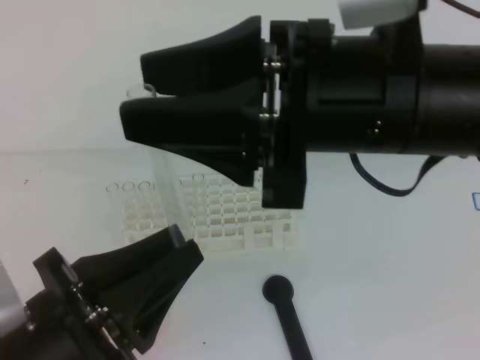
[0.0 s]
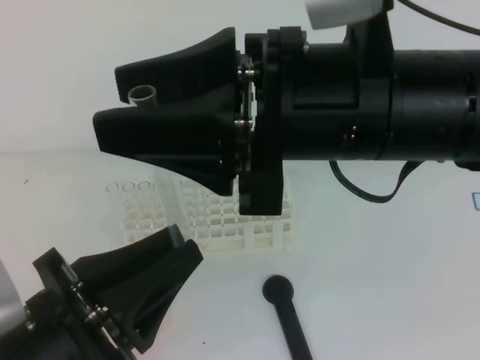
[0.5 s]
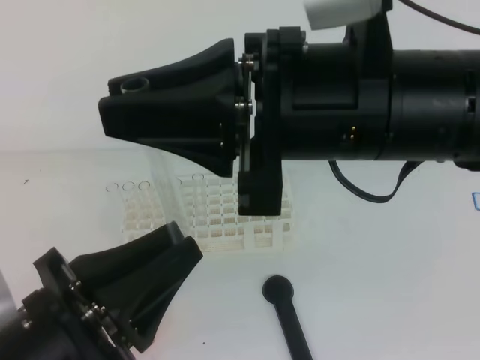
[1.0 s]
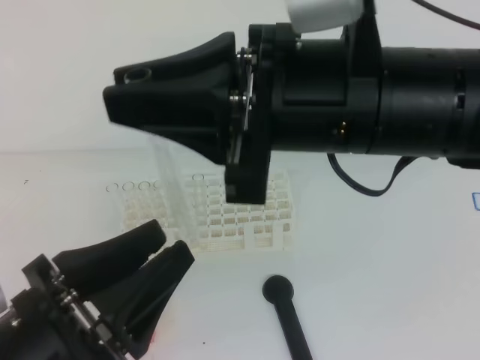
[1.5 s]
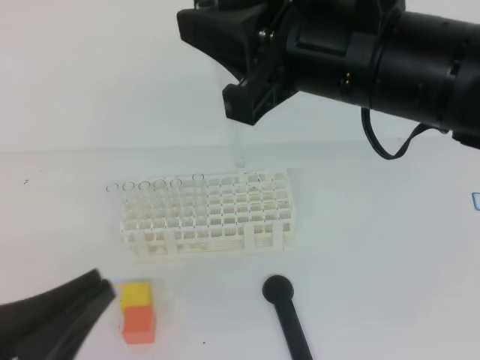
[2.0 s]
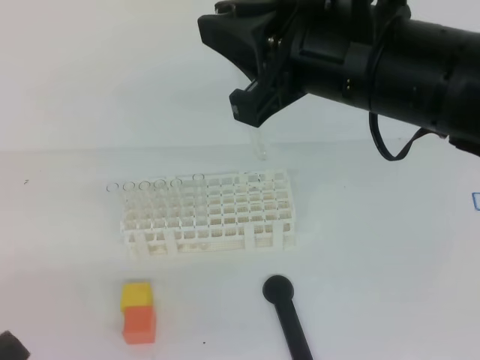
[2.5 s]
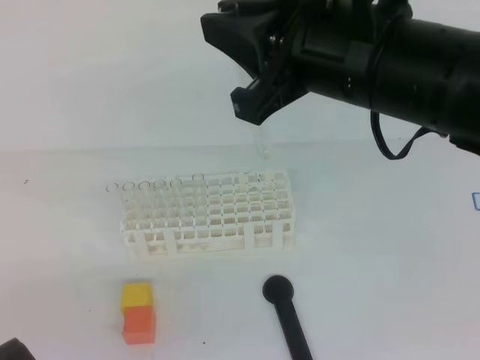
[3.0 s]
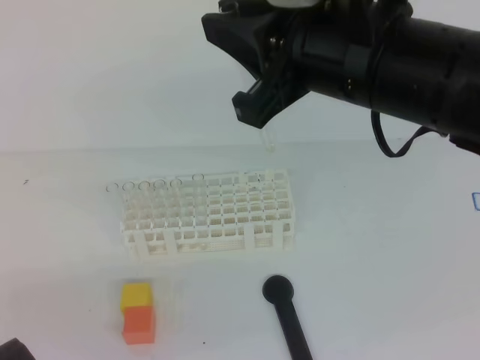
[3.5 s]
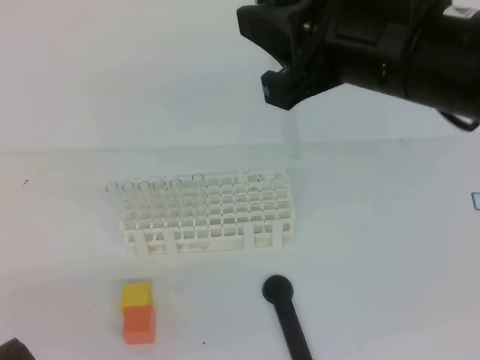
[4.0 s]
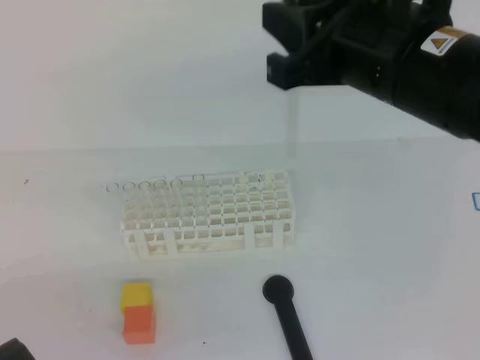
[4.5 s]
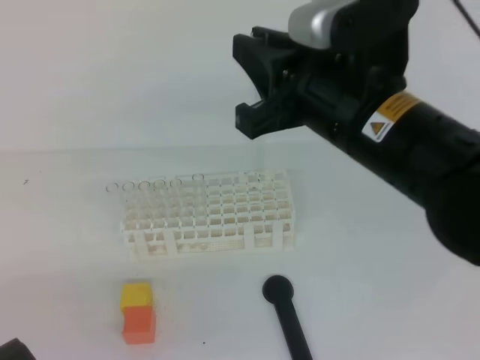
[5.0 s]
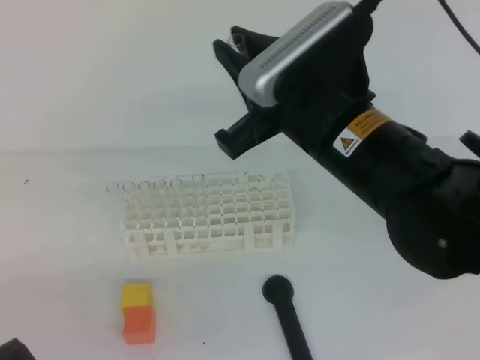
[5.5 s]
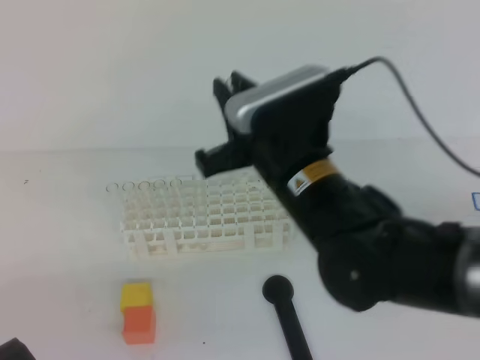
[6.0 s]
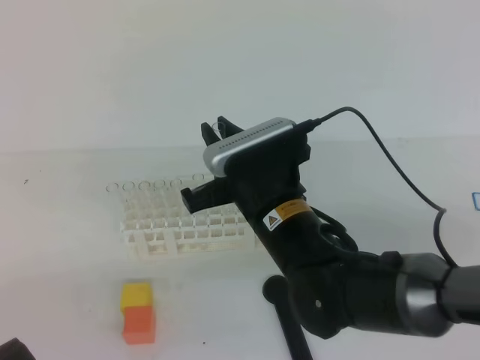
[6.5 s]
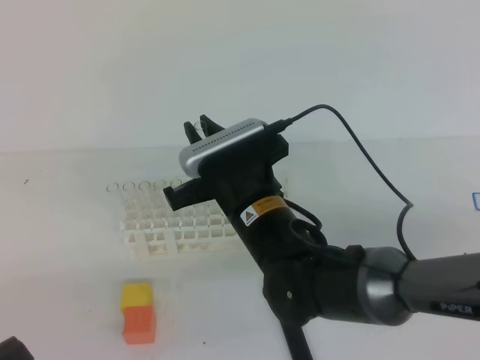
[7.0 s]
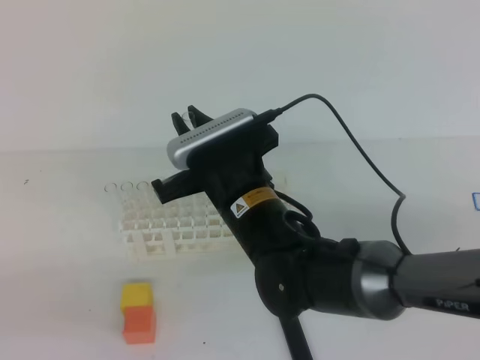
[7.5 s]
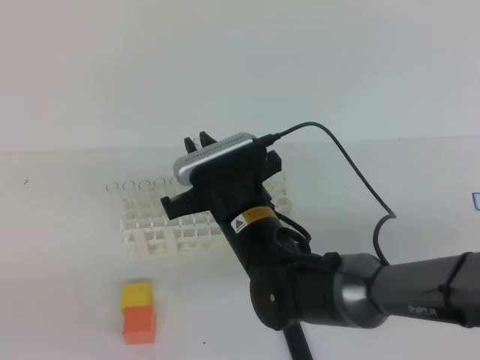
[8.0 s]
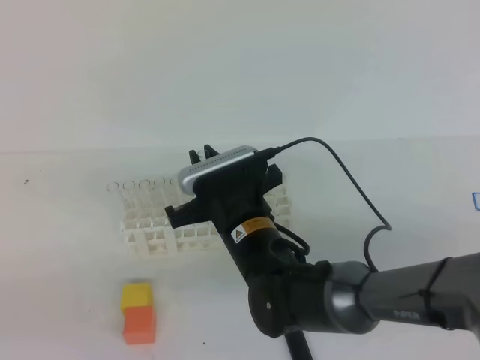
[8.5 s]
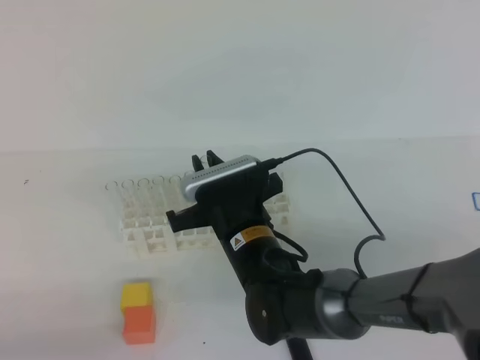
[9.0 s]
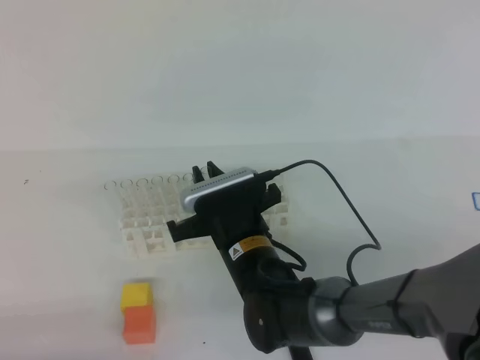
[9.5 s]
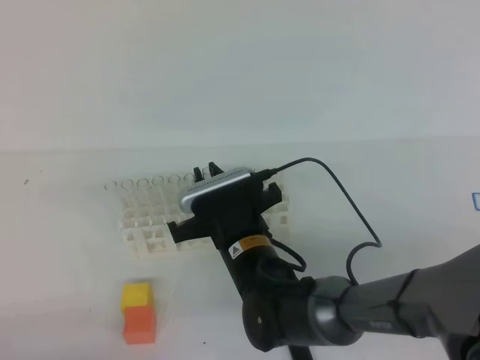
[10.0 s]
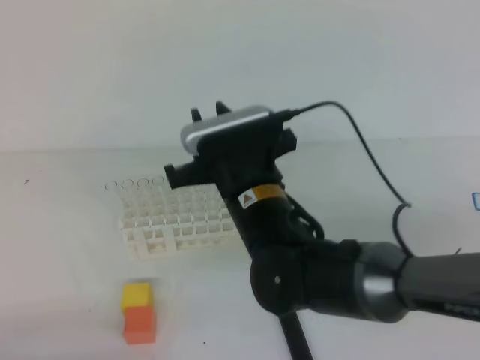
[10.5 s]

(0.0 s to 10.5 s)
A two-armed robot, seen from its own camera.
0.0 s - 2.0 s: The right gripper closes; the left gripper moves about 5 cm.
2.0 s - 4.0 s: The left gripper goes approximately 5 cm to the left.
4.0 s - 6.5 s: The right gripper moves downward and to the left, approximately 20 cm.
6.5 s - 8.5 s: The right gripper moves downward, approximately 5 cm.
8.5 s - 10.5 s: The left gripper heads downward, covering some 10 cm. The right gripper heads upward, covering about 5 cm.

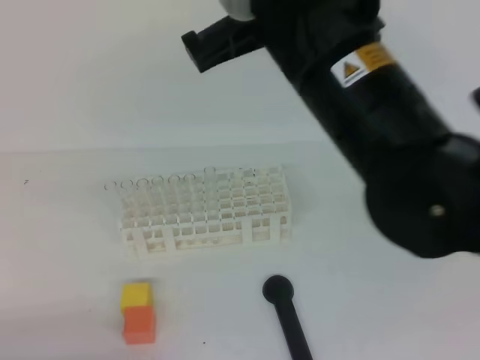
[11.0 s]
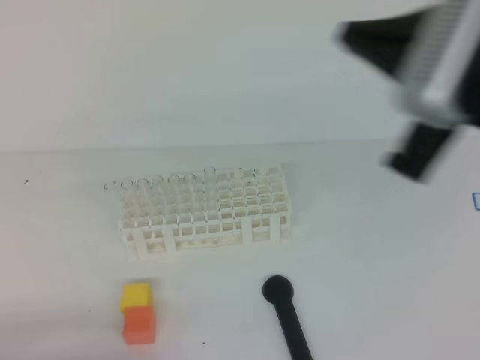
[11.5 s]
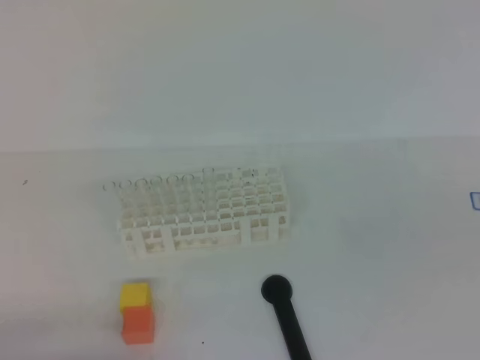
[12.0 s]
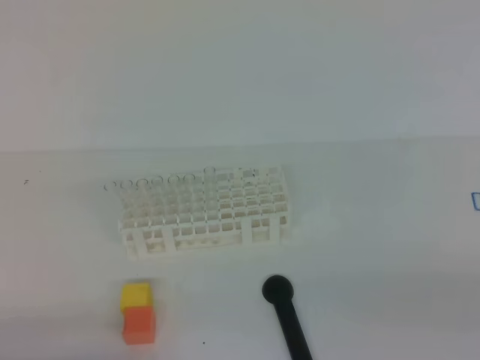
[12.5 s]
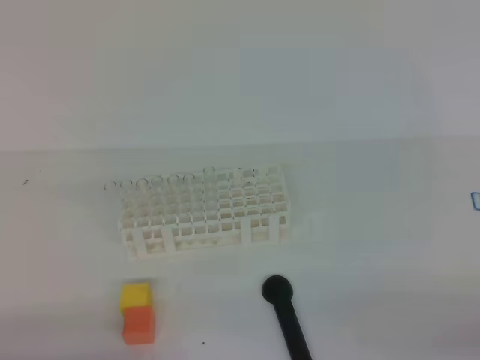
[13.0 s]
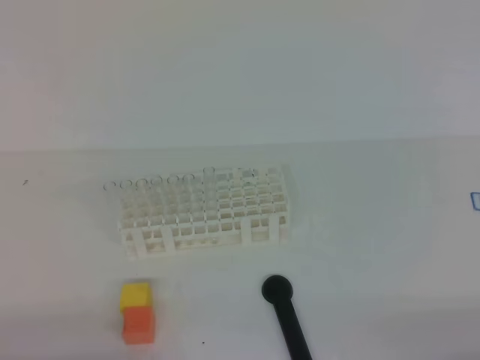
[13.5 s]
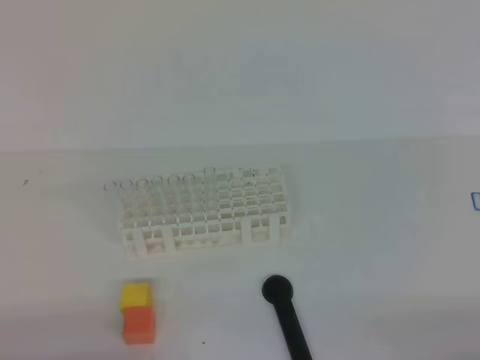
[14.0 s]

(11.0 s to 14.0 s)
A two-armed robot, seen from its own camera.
11.0 s - 12.5 s: The right gripper moves to the right, backward and downward, approximately 35 cm.
